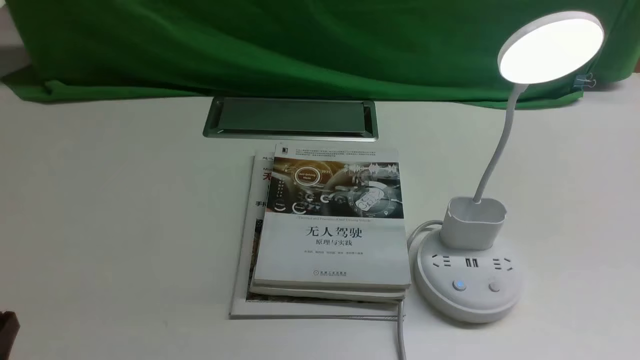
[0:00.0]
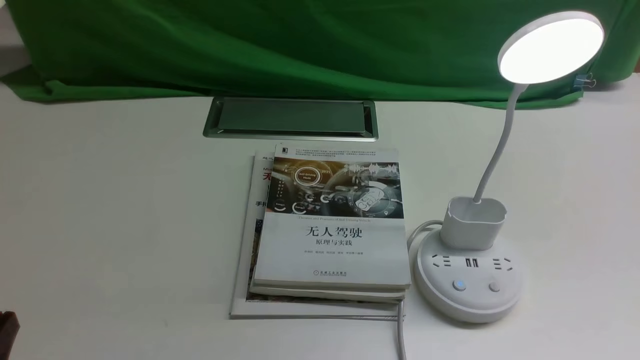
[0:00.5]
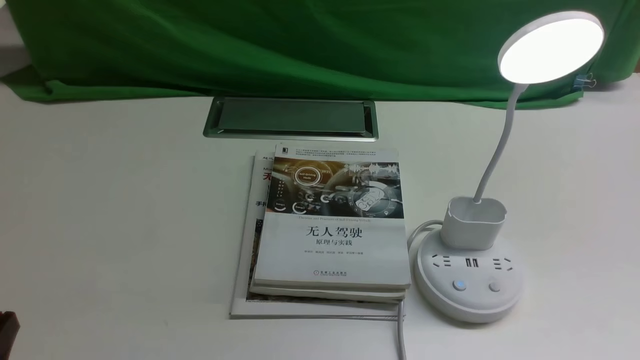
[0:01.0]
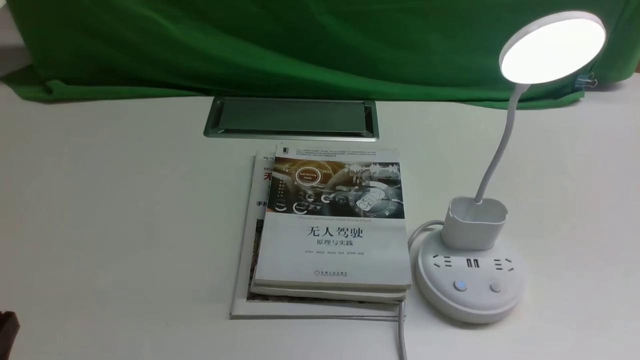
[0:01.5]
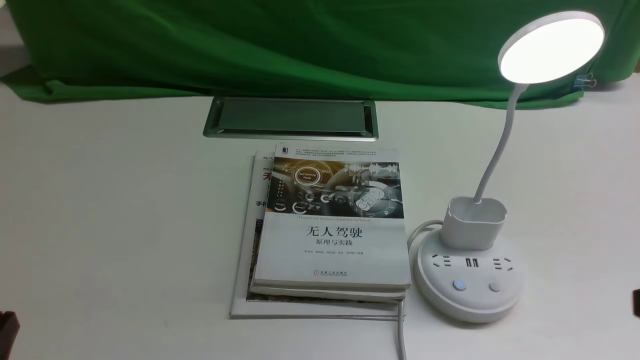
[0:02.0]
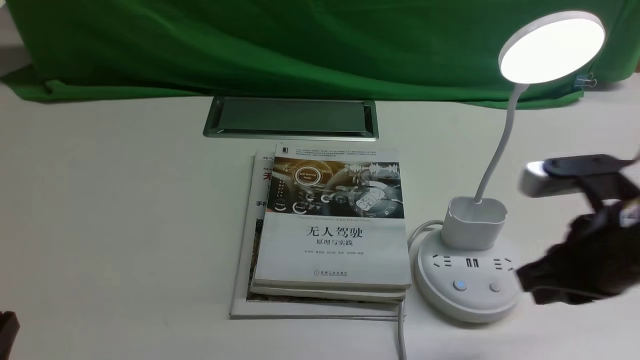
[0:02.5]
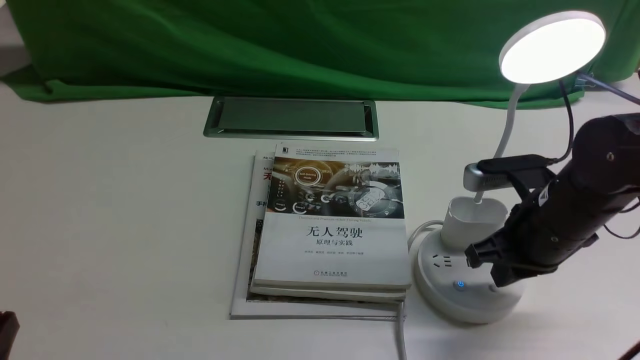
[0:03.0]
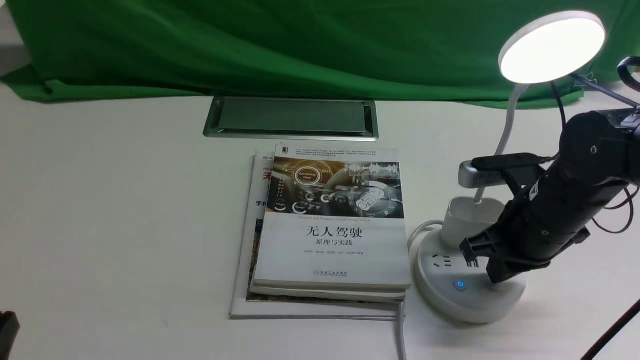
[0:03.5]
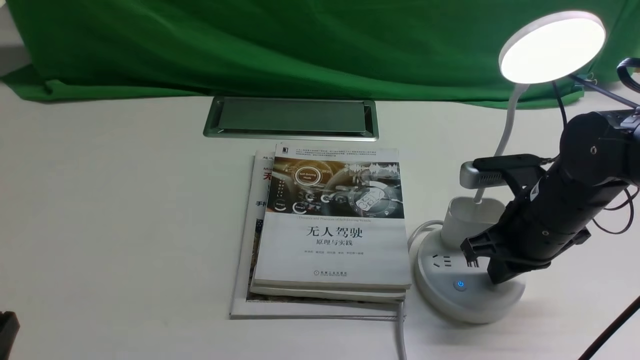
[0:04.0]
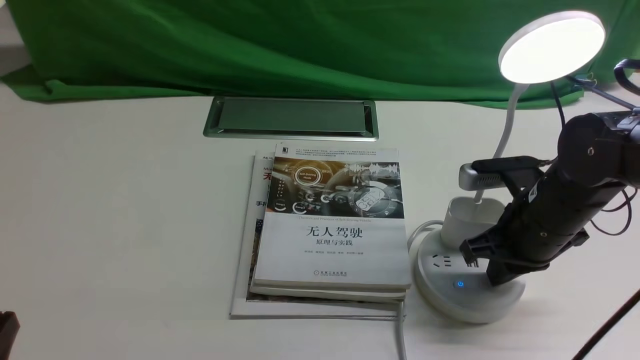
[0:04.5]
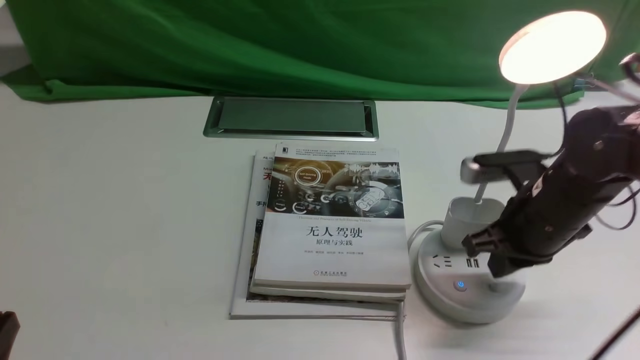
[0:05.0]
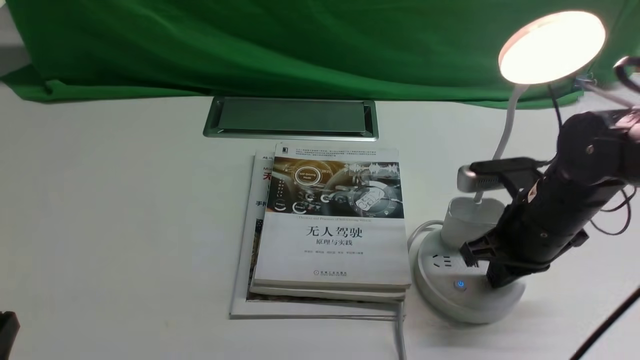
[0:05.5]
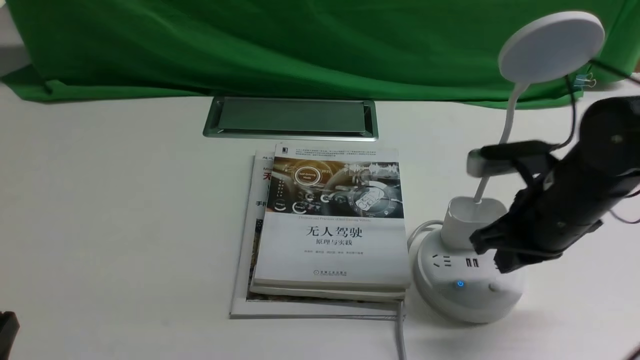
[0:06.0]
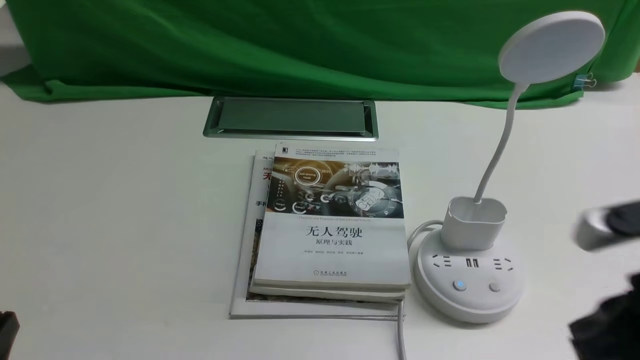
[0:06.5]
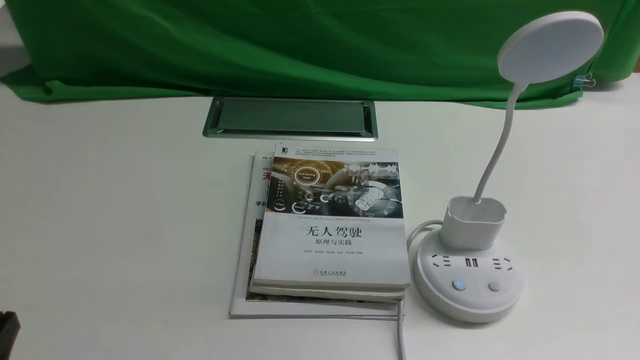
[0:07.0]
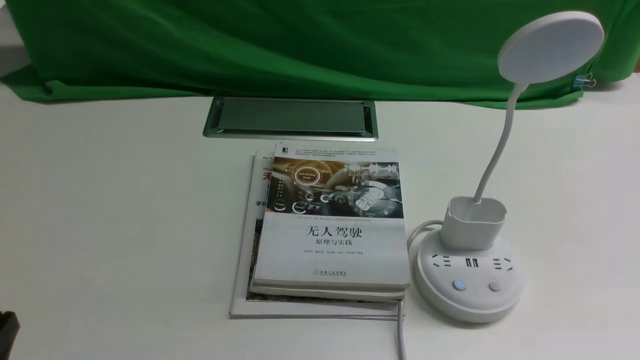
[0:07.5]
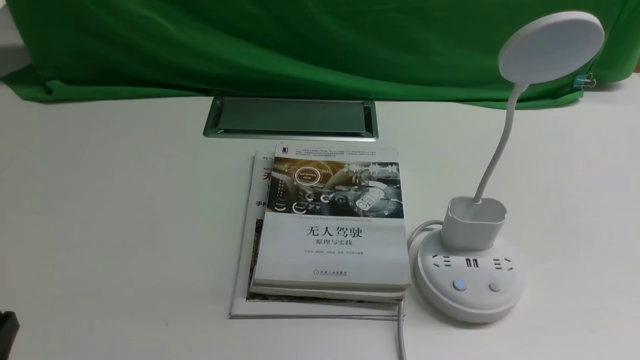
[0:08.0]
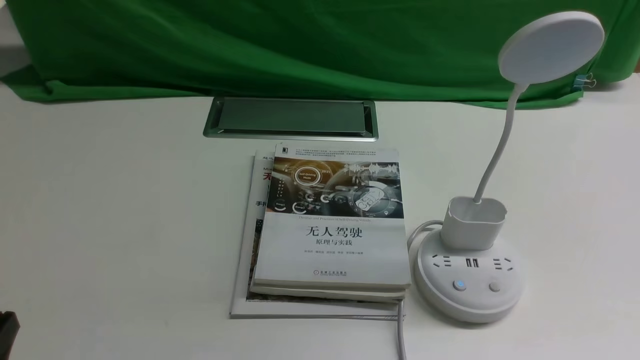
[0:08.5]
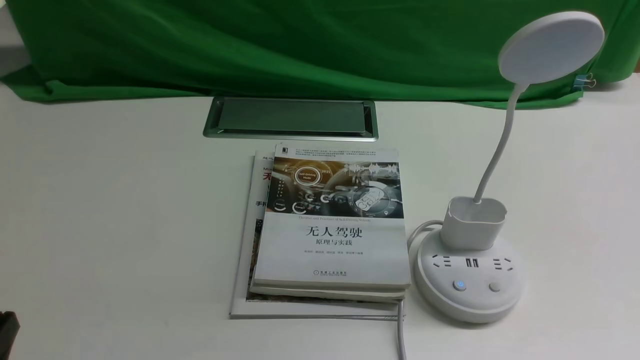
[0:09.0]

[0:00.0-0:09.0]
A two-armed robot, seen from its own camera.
Task of the whole recording: turn off the desk lamp on the white desktop by hand.
Step, 0:00.0 to 0:06.0: use the right arm to press the button switch on the lamp holder.
0:02.0 to 0:04.5: The right gripper shifts approximately 25 cm forward and downward, and closes its fingers.
0:04.5 to 0:07.0: The right gripper shifts about 25 cm backward and upward.
